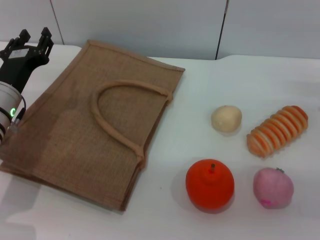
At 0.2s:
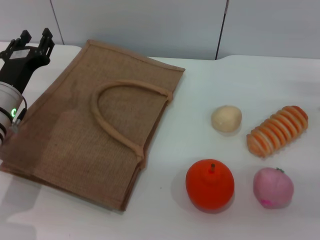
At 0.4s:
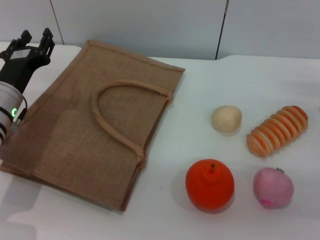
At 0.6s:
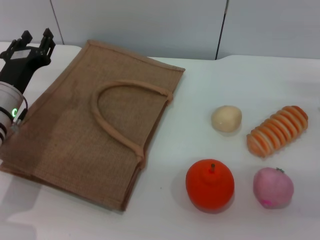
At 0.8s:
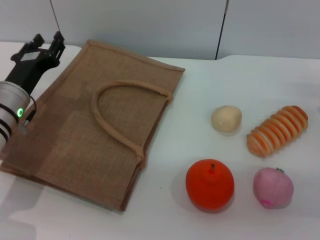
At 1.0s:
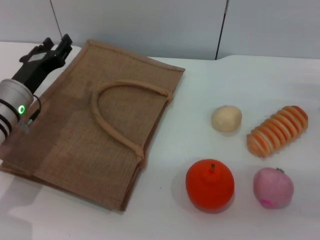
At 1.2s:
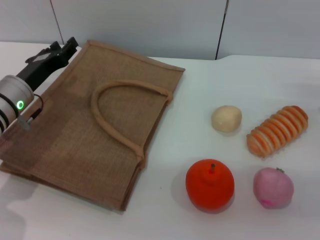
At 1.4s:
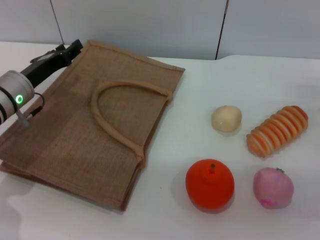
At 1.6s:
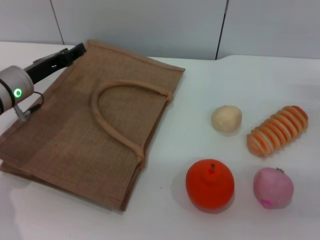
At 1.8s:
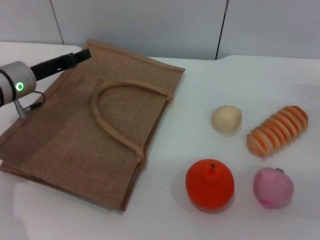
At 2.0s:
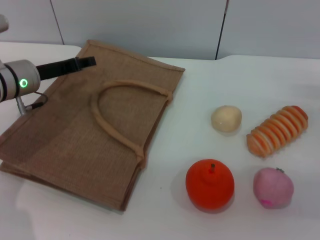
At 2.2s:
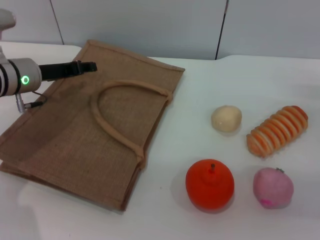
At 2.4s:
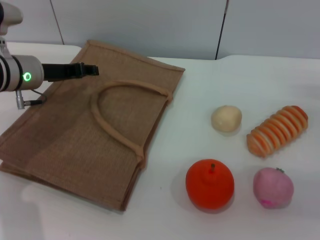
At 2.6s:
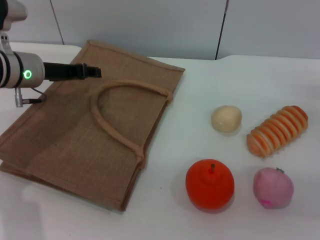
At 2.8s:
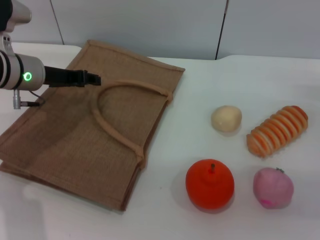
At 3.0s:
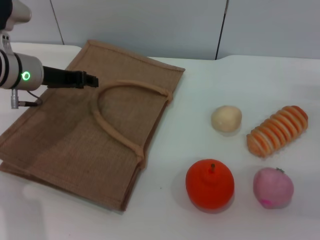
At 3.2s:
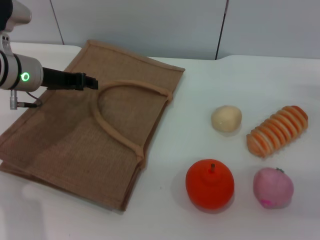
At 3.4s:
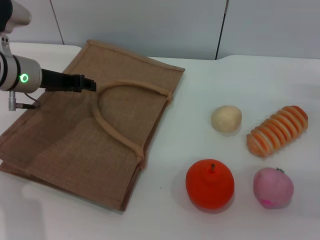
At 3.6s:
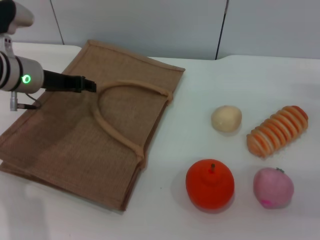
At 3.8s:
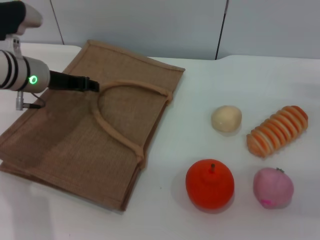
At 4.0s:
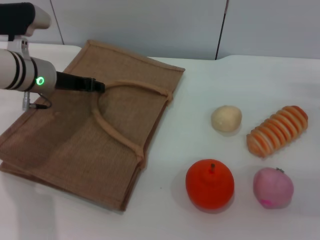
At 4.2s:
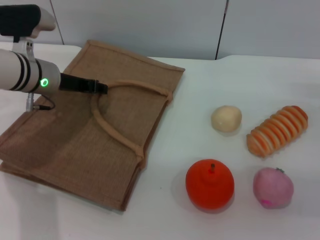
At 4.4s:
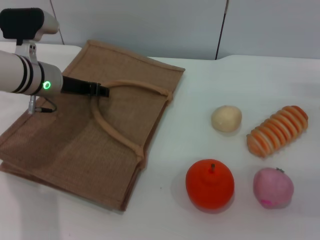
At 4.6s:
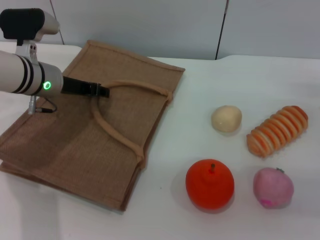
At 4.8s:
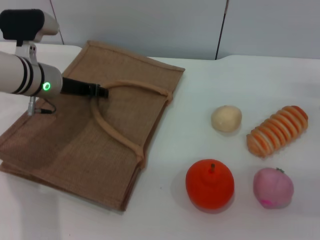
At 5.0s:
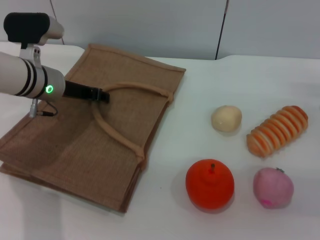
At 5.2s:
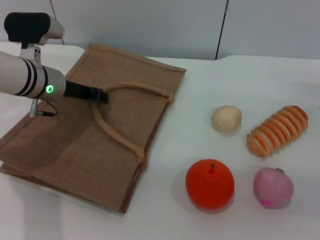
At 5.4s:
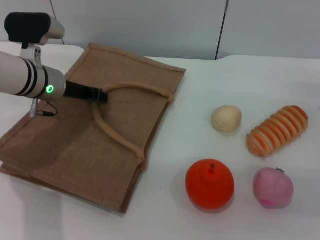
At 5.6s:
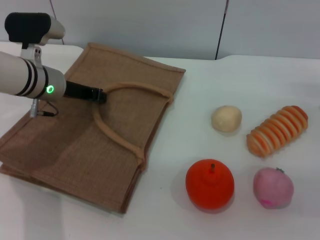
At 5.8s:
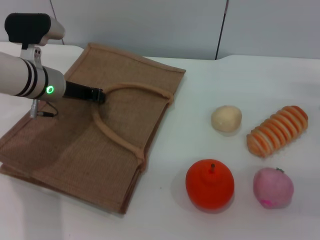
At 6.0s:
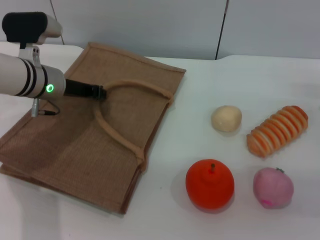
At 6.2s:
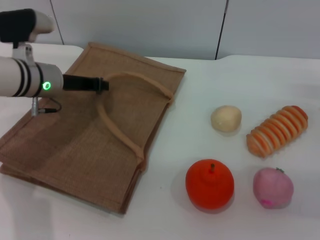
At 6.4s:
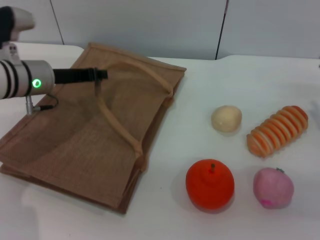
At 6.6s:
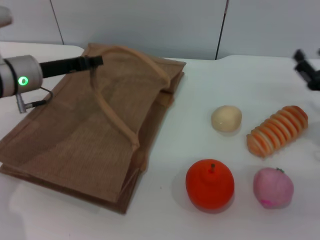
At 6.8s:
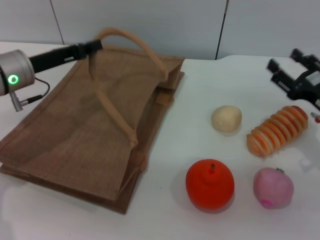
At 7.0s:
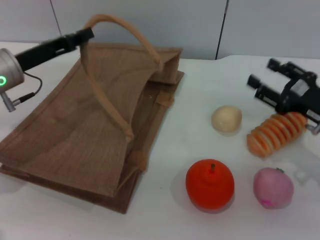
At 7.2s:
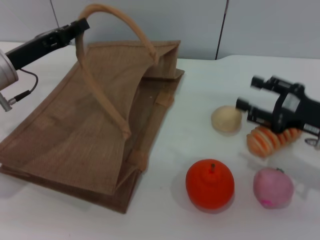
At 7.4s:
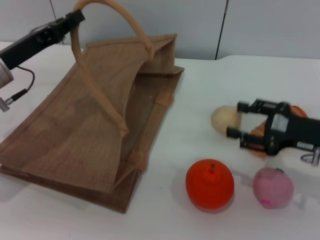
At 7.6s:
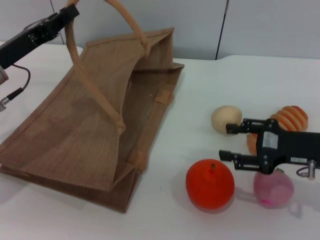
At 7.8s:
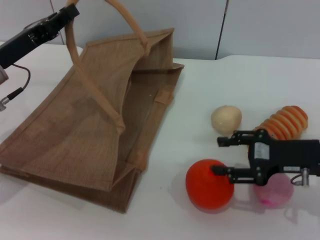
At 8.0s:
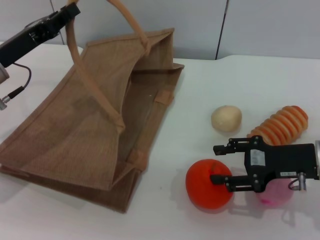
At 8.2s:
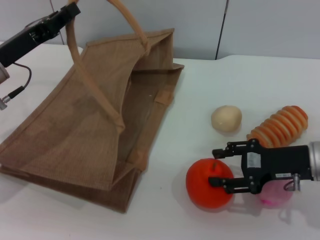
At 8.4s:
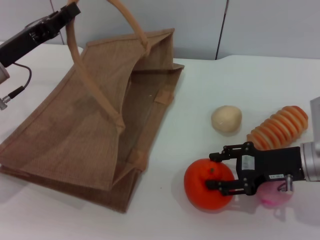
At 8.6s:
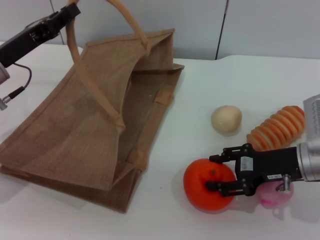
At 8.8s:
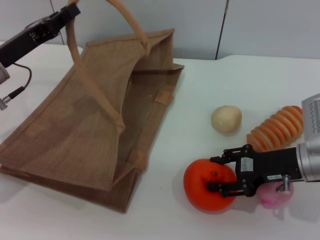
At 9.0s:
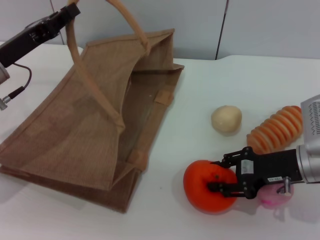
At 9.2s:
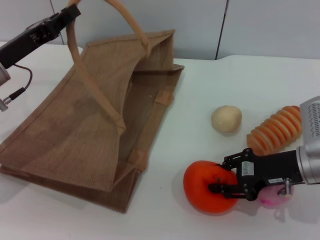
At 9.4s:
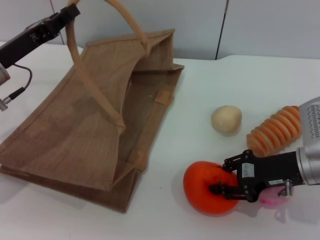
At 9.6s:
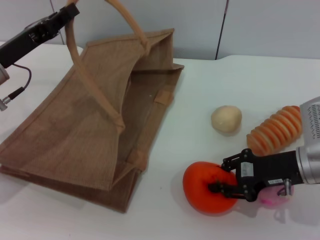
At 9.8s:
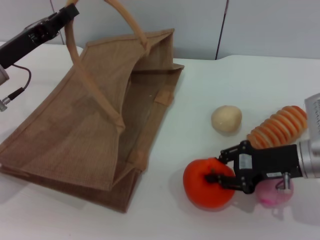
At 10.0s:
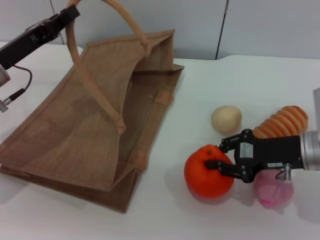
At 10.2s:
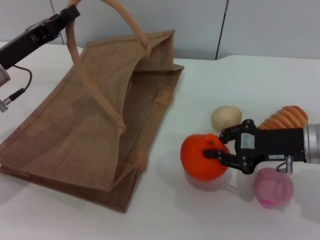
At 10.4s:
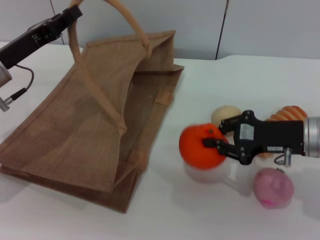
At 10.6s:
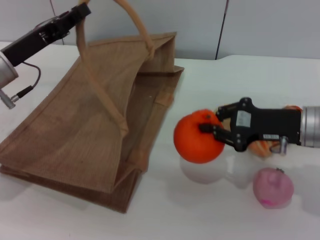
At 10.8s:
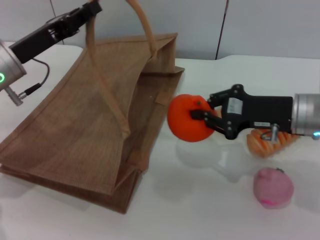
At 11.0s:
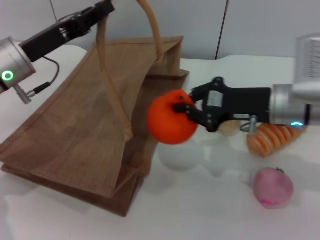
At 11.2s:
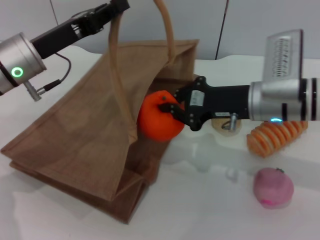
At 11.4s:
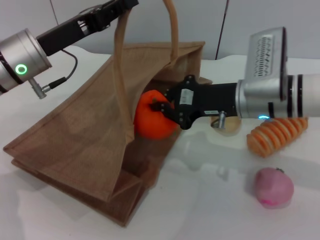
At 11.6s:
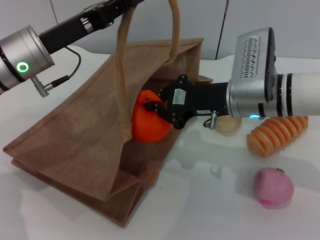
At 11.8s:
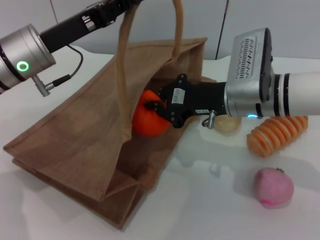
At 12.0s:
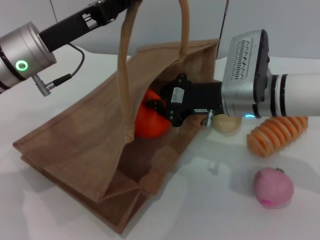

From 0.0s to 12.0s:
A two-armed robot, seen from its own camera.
Task of the whole recording: pick up the orange from the table and place it in the brown handbag.
Step, from 0.0s to 6.4s: Lift the woven bag with the left gripper to open it.
Step, from 6.6s to 10.0s: Pick up the orange with the right gripper.
From 1.6s to 3.0s: The left gripper shifts by roughly 5 cm.
From 3.0s to 4.4s: There are only small adjustments of the grippers.
From 4.4s to 6.0s: The left gripper closes up.
From 6.0s to 7.6s: The left gripper moves backward and to the left, roughly 10 cm, while the right gripper goes some 5 cm to the left.
From 7.6s to 9.0s: The grippers move only a little.
From 9.0s to 10.4s: The right gripper closes up.
From 10.4s to 12.0s: The right gripper shifts about 10 cm to the left; the left gripper goes about 5 cm to the right.

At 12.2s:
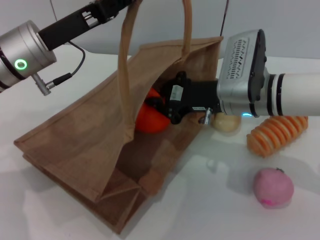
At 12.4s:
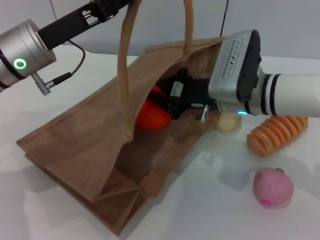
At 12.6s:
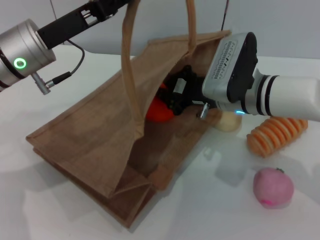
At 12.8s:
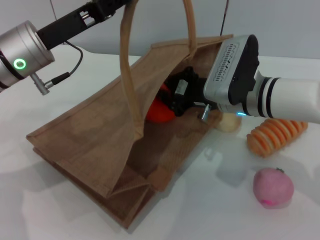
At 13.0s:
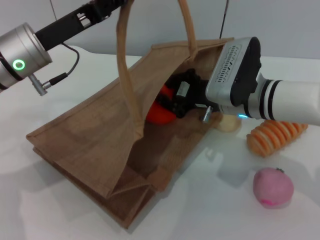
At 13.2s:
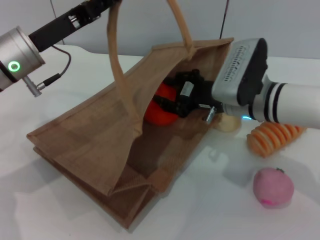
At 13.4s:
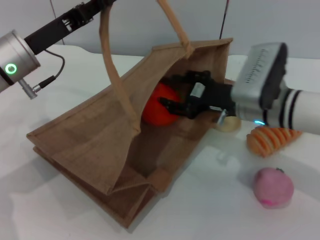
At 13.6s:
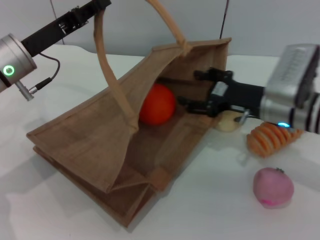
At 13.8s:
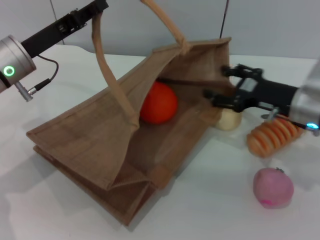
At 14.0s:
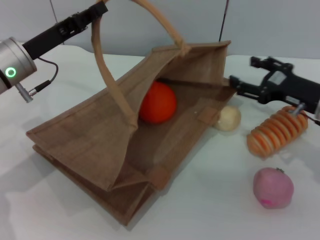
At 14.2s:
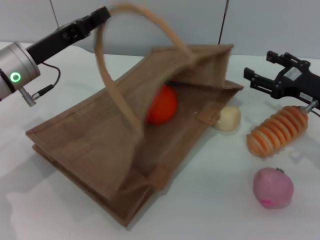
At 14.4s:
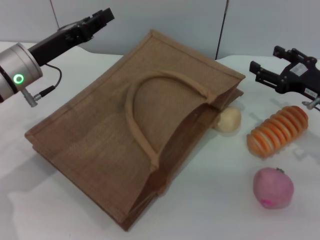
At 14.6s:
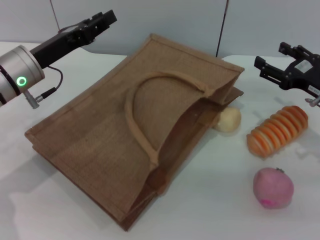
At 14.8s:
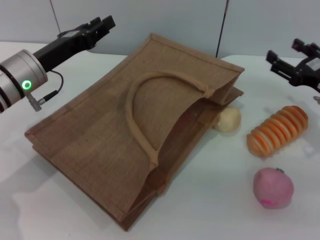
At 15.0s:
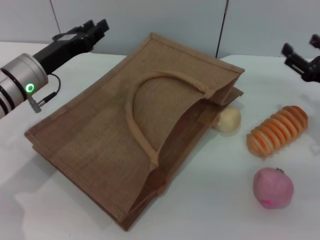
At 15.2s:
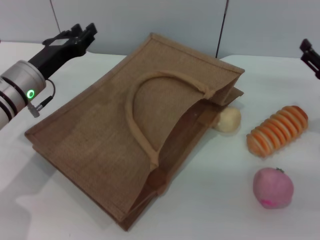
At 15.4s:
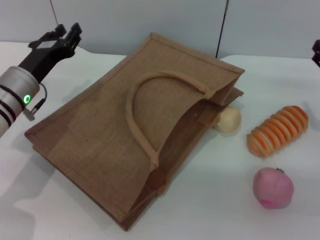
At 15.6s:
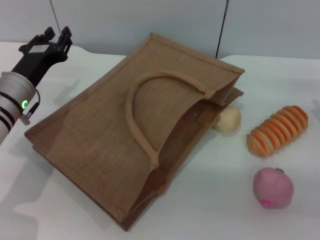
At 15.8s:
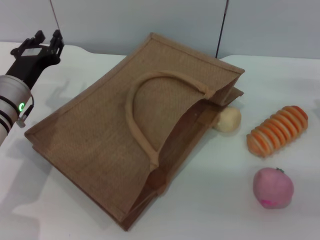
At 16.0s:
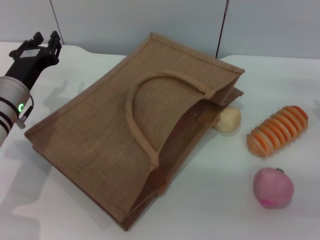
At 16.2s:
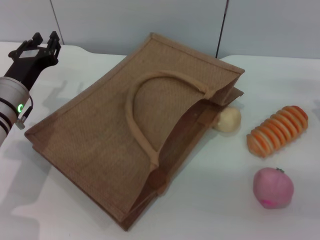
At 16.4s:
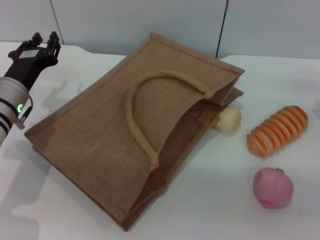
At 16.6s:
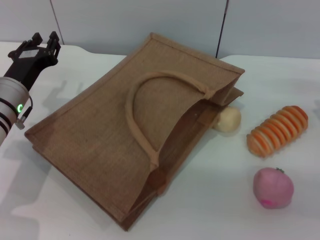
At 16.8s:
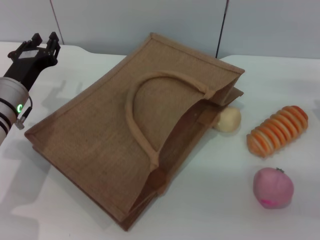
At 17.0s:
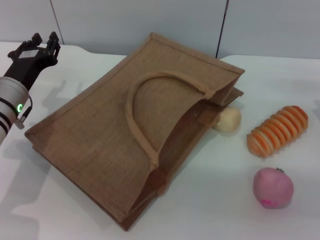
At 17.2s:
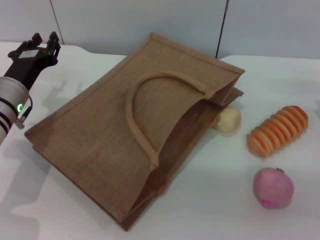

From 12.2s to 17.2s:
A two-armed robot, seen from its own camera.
Task of the whole recording: pick up the orange from the table and place it in the brown handbag.
Step, from 13.8s to 14.6s: Lower the woven bag with the left gripper to close it.
From 12.2s to 13.8s: The left gripper shifts by approximately 5 cm. The right gripper shifts some 10 cm to the right, and opens its fingers.
From 13.8s to 15.6s: The left gripper travels downward by roughly 5 cm, and opens up, while the right gripper shifts approximately 10 cm to the right.
From 15.6s to 17.2s: The grippers move only a little.

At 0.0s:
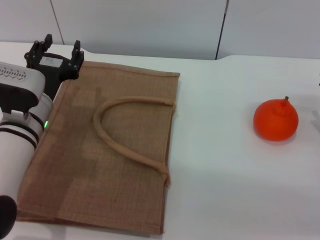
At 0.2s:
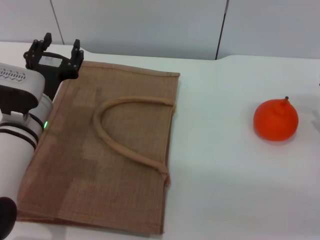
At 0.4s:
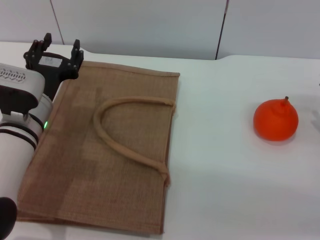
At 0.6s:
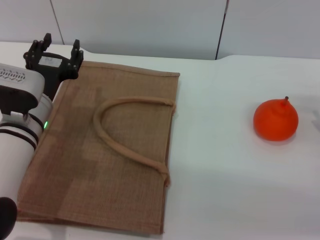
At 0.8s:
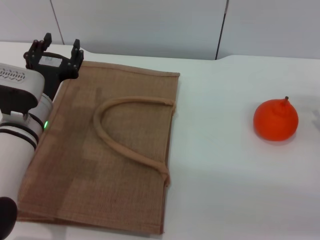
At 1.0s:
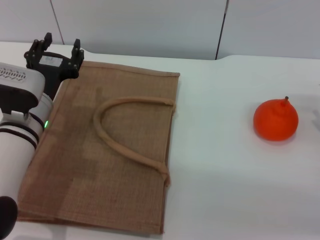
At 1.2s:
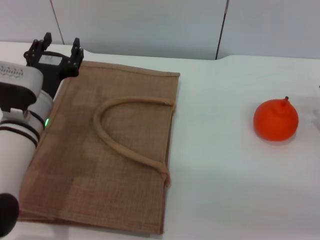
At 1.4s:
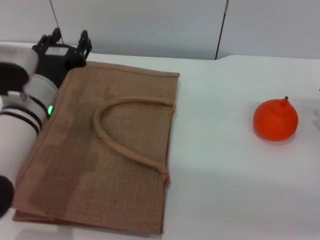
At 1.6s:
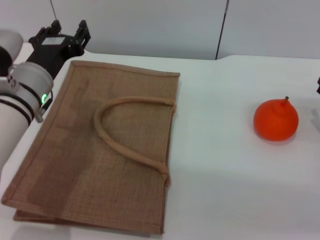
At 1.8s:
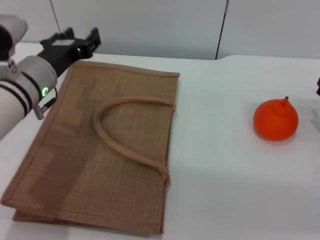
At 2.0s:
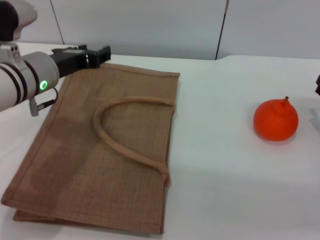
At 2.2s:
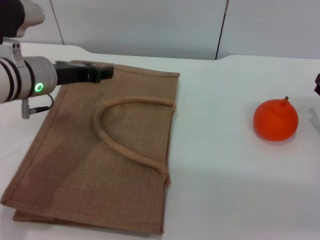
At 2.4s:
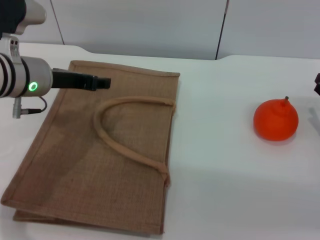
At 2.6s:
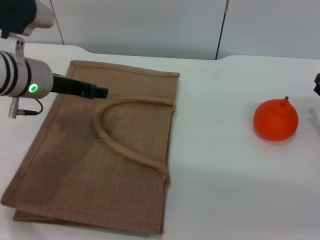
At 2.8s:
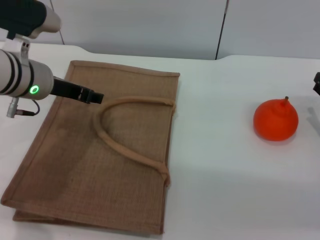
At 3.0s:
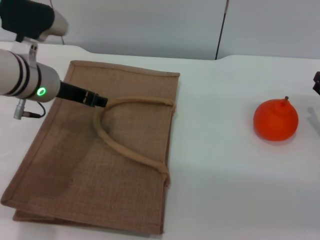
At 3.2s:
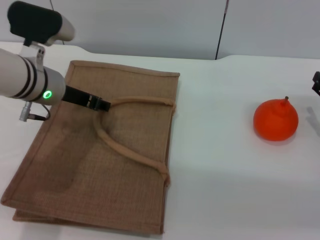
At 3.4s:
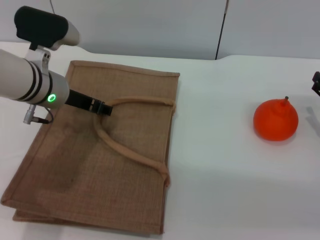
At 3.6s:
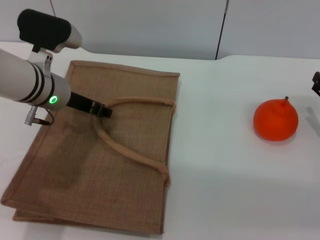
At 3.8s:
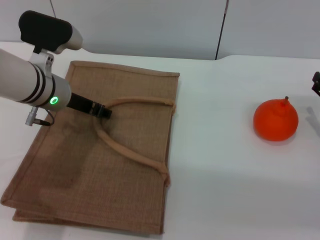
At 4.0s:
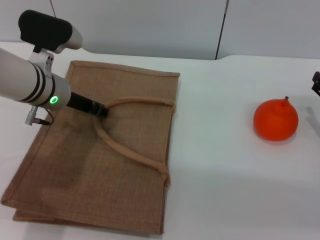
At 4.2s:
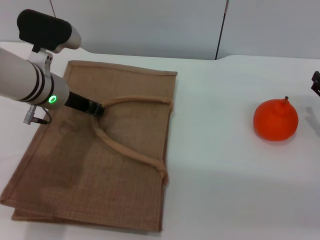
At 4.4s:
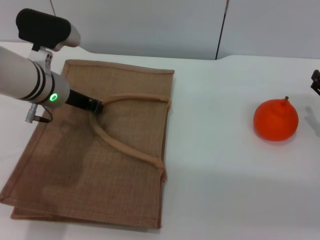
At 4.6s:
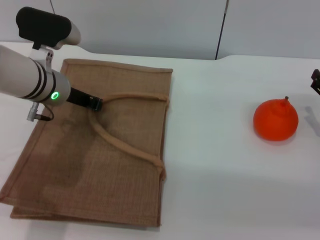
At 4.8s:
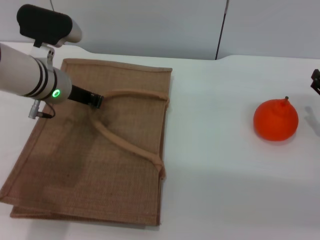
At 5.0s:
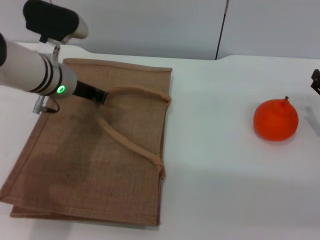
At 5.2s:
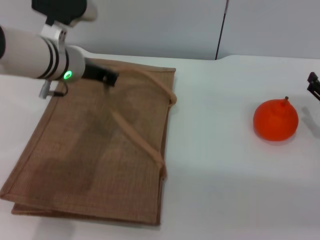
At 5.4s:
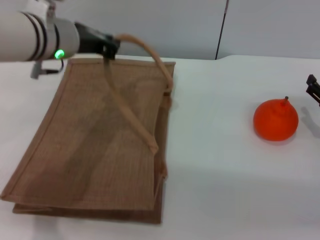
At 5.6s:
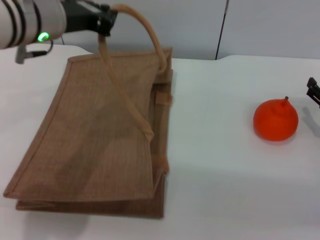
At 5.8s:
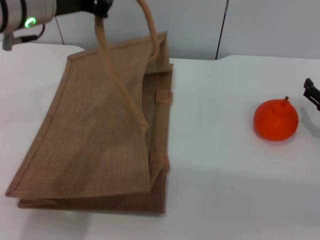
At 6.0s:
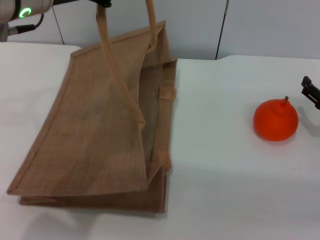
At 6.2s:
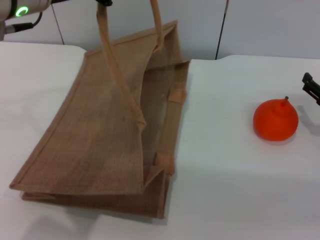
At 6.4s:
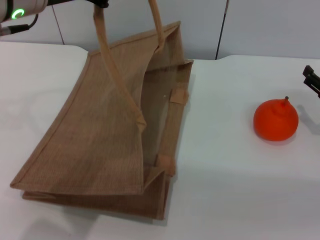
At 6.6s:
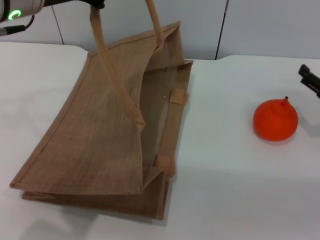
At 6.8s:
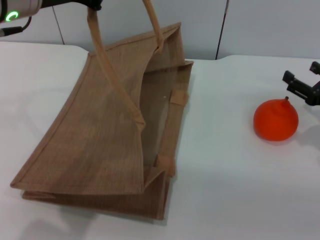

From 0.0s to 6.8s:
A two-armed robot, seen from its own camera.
Task of the whole recording: pick up the orange from the table and place it in the brown handbag.
Step, from 0.0s to 6.6s: Lift the woven bag with the left gripper to open it.
From 0.0s to 1.4s: The grippers move only a little.
From 1.4s to 2.8s: The left gripper moves upward, about 5 cm.
From 2.8s to 4.0s: The grippers move only a little.
From 4.0s to 5.4s: The left gripper shifts approximately 10 cm upward, and closes up.
From 5.4s to 6.8s: The left gripper moves upward and backward, about 10 cm.
